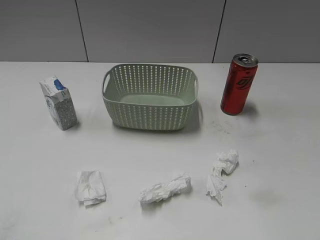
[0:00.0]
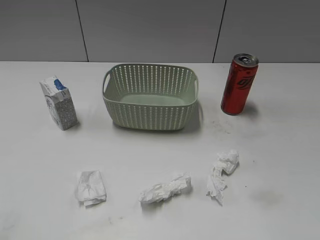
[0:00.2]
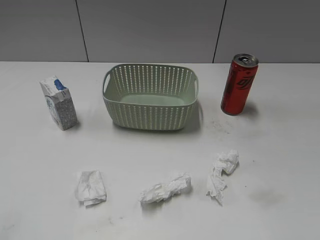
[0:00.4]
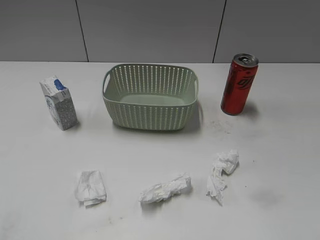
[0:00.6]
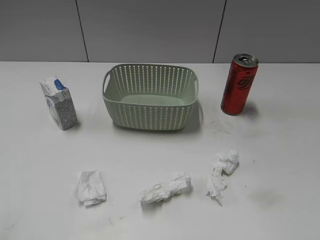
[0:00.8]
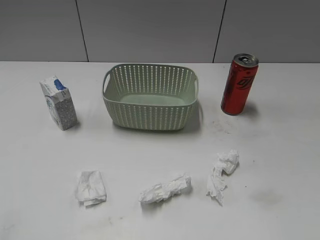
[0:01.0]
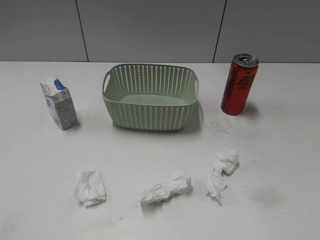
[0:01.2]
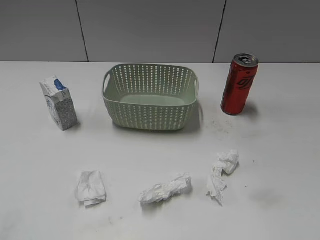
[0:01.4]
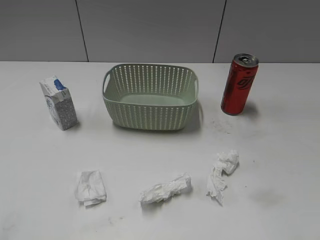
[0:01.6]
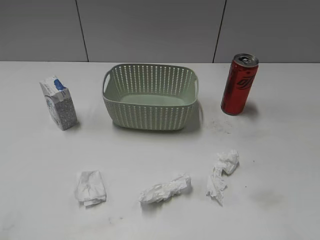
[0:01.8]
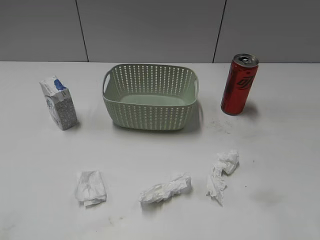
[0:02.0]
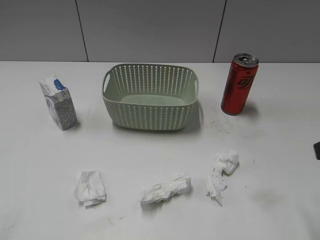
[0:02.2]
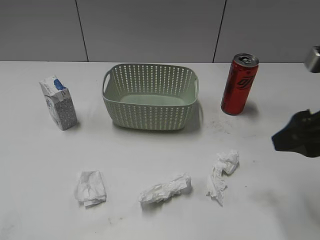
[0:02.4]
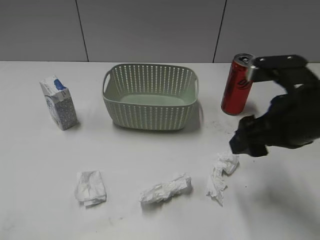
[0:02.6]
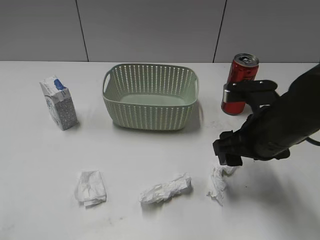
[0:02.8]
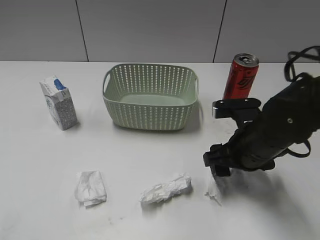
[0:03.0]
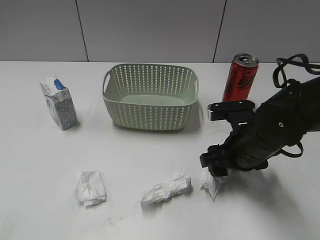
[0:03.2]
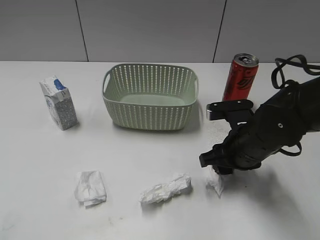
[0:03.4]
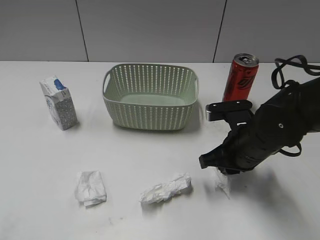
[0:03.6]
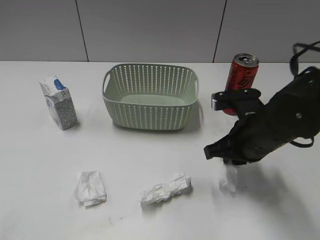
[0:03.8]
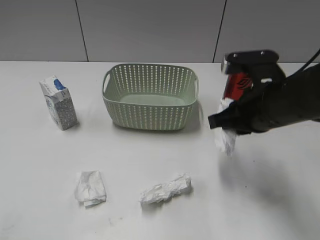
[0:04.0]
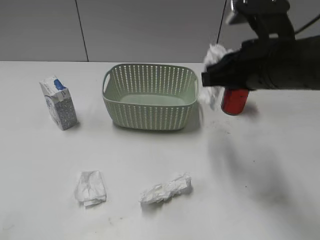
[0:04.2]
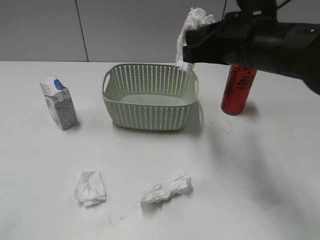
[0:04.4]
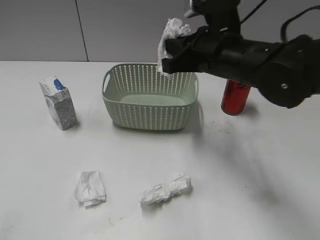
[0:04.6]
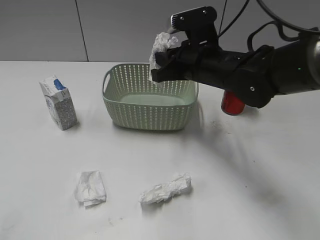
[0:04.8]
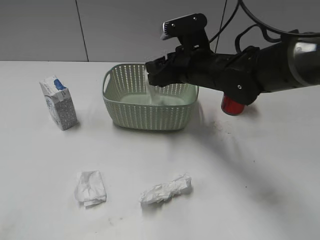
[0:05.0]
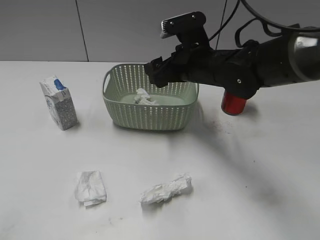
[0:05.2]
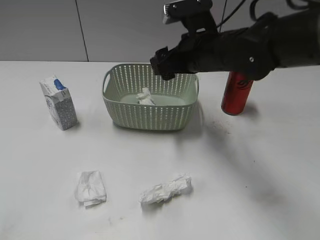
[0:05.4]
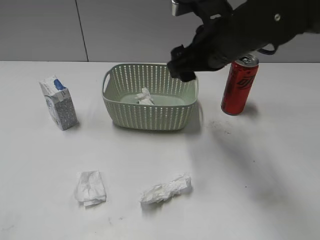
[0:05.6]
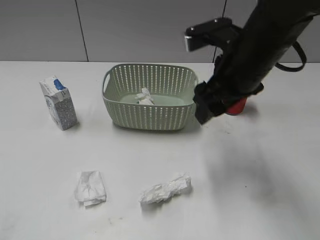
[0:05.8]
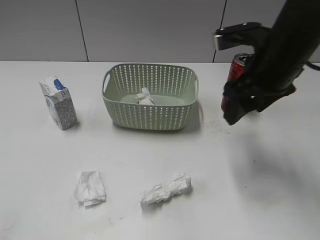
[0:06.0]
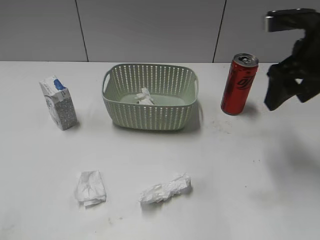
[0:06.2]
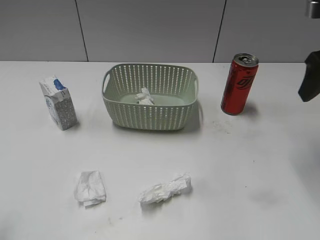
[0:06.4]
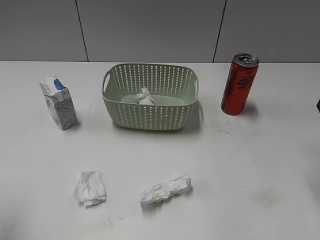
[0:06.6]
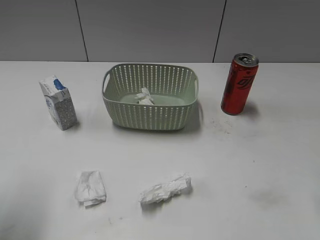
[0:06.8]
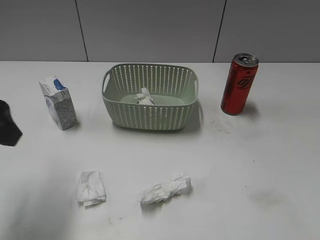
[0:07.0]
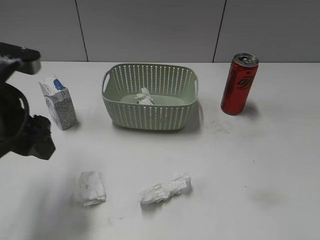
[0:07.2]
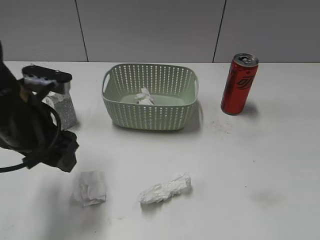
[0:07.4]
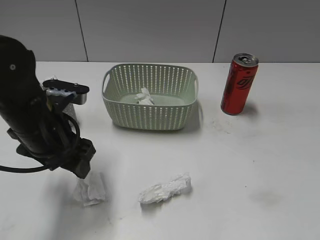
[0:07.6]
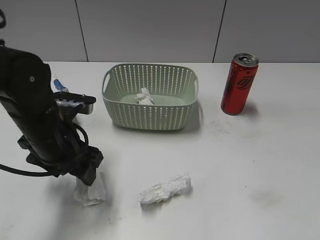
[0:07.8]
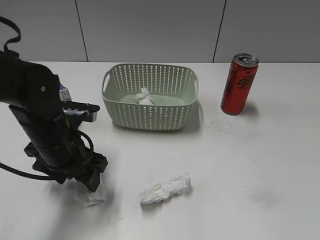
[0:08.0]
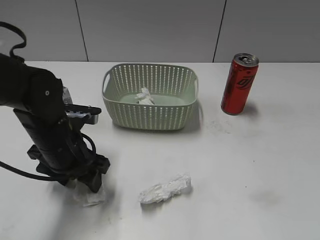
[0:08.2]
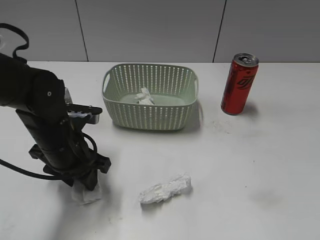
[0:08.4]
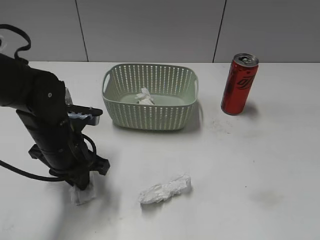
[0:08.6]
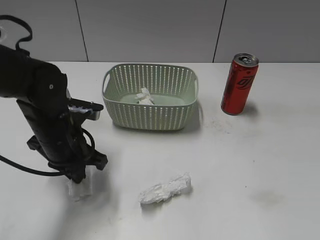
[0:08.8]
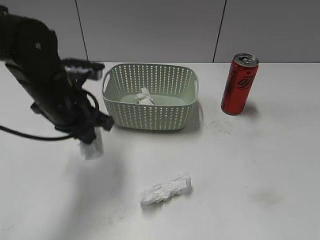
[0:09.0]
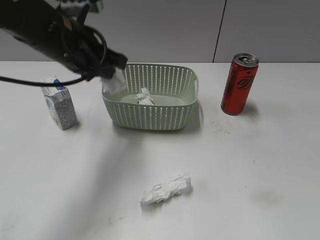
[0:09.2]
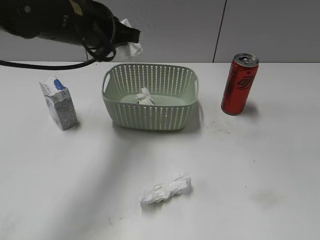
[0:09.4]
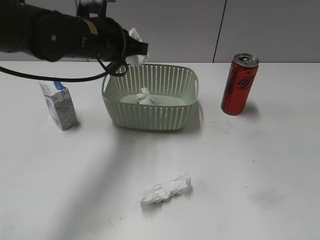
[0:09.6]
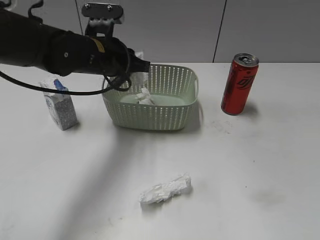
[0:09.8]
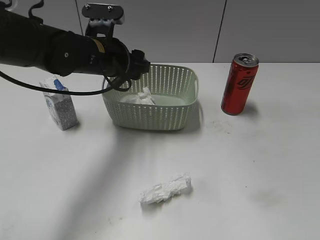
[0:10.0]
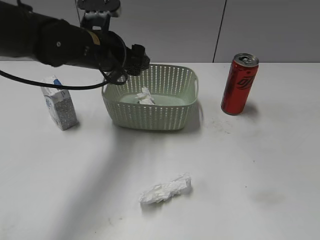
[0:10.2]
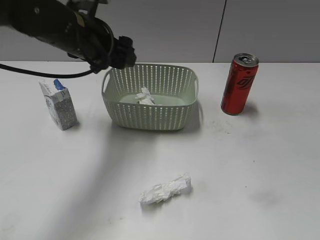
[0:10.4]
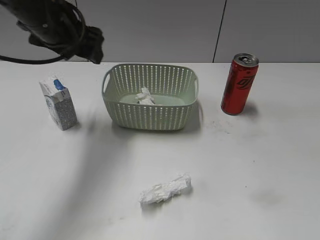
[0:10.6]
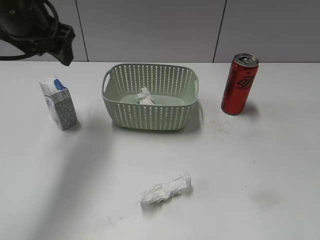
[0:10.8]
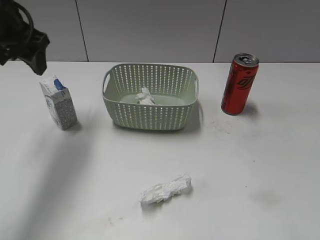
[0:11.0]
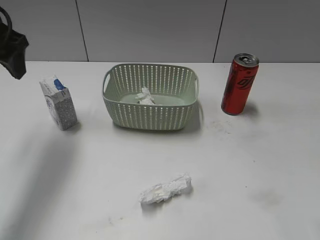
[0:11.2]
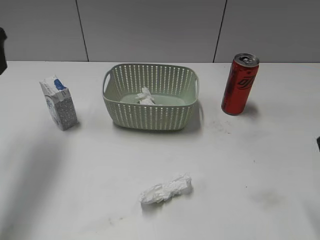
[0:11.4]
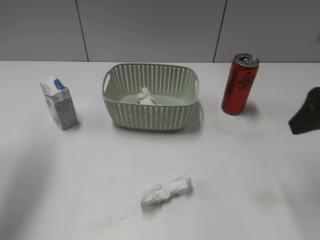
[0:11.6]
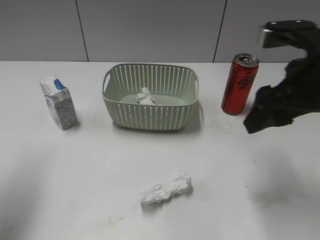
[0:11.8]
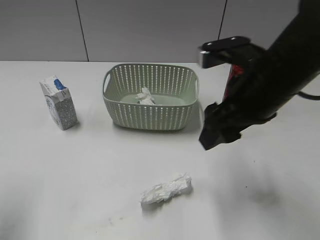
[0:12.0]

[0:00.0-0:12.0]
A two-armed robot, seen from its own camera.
Step, 0:02.2 to 0:03.6: Grasp the waste paper with right gripper.
Step, 0:03.8 to 0:05.4: Place the waste paper in the basket with right gripper.
Step, 0:05.6 to 0:08.6: Grasp the waste paper with left gripper.
Step, 0:08.8 to 0:10.0: Place the waste paper in the basket with left gripper.
0:01.6 to 0:03.0: The right gripper heads forward, downward and to the left, covering roughly 30 cm.
0:03.0 to 0:04.4: The right gripper is displaced upward by approximately 15 cm, and closes up.
0:04.4 to 0:06.0: The right gripper shifts approximately 5 cm to the right, and opens.
0:06.0 to 0:07.6: The right gripper is displaced backward and to the right by some 30 cm, while the left gripper moves forward, to the right and downward, approximately 30 cm.
0:07.6 to 0:09.0: The left gripper changes place by some 5 cm, and closes.
0:09.0 to 0:10.4: The left gripper shifts roughly 10 cm forward and upward, and opens up.
0:10.4 to 0:12.0: The left gripper shifts about 25 cm backward and to the left, while the right gripper goes roughly 30 cm forward and to the left.

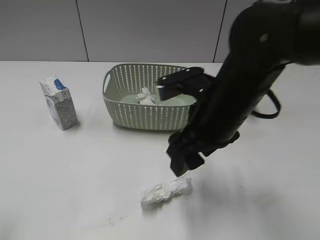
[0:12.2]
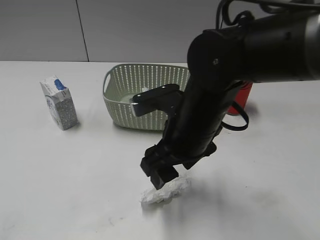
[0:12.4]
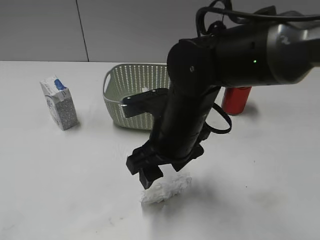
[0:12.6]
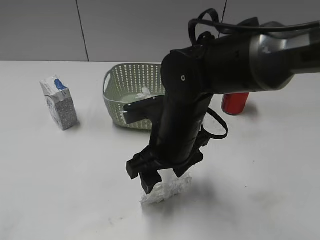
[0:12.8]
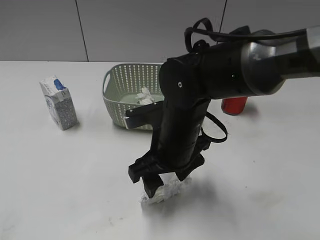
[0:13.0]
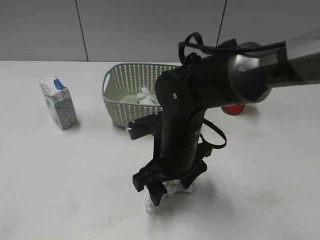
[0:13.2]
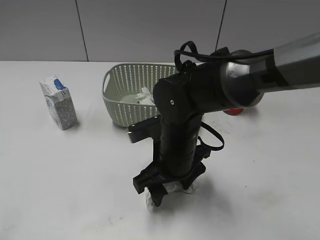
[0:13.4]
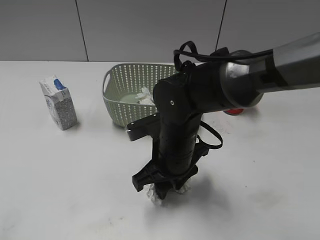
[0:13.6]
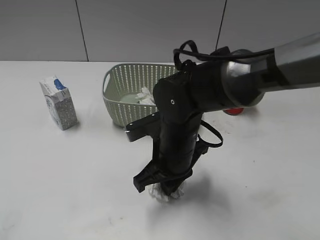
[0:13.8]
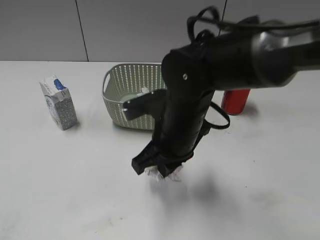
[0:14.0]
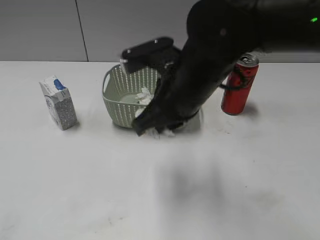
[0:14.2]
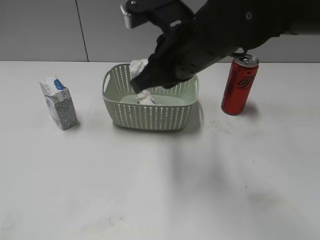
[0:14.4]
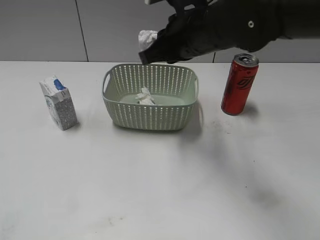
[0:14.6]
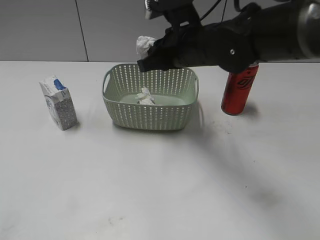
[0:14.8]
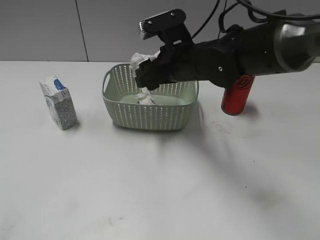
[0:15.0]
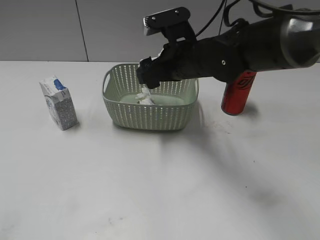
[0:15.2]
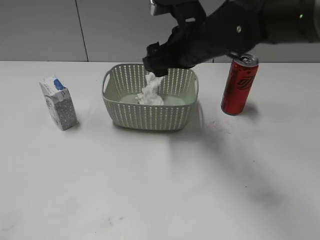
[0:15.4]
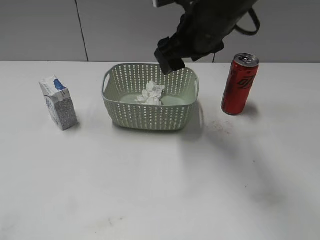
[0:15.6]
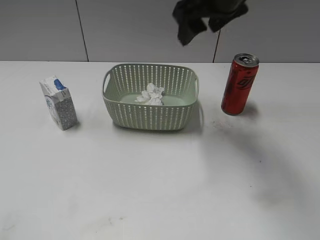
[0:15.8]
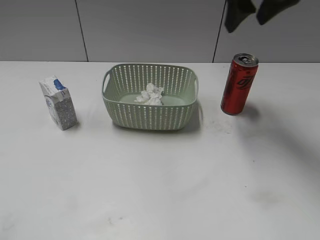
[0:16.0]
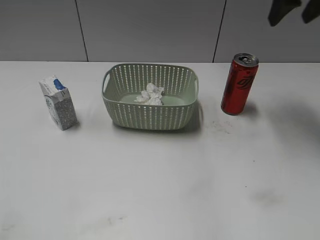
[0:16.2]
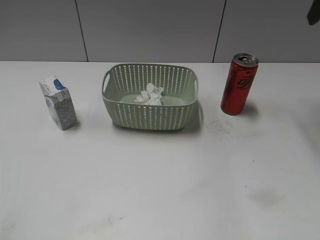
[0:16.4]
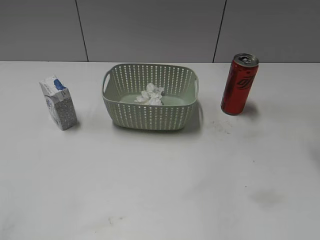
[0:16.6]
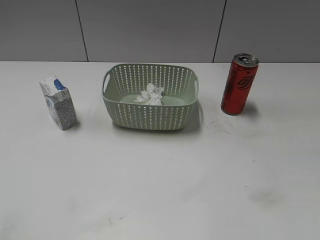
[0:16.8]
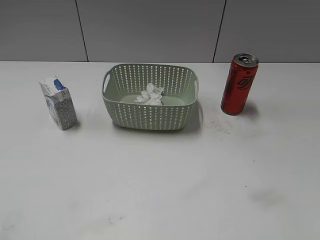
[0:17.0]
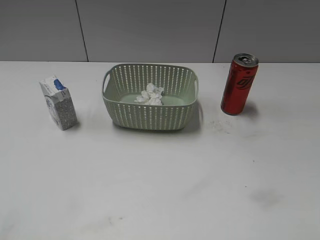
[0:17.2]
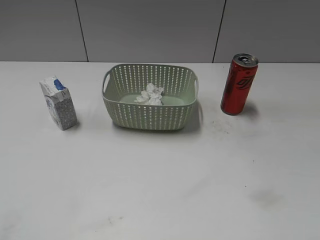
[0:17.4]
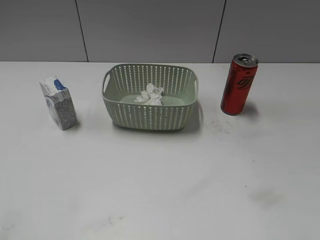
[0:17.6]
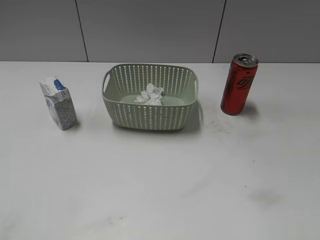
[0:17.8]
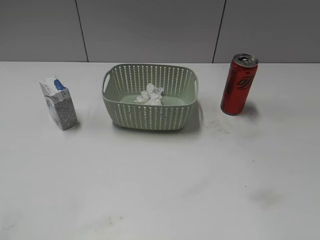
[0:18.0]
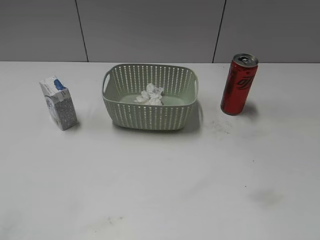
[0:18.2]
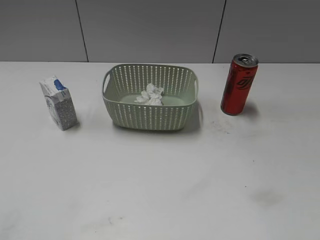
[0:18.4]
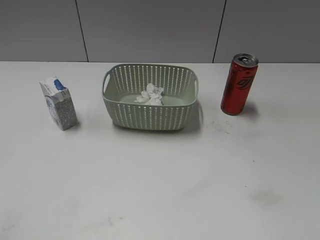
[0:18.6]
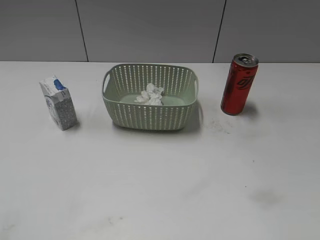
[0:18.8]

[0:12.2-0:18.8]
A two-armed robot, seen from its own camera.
Step, 0:14.0 to 0:15.4: Place the waste paper in the basket with right gripper.
0:12.2 to 0:13.8: The left gripper travels backward by roughly 10 cm. The right gripper moves downward, some 10 cm, and closes.
0:13.8 to 0:15.4: The right gripper goes up and down, about 15 cm each way, reversing 2 times, and opens up.
0:15.4 to 0:17.2: The right gripper travels backward and to the right by some 35 cm.

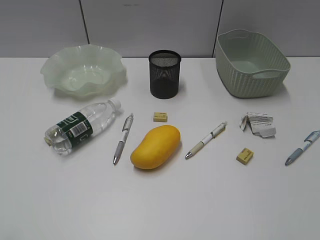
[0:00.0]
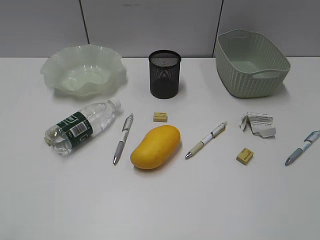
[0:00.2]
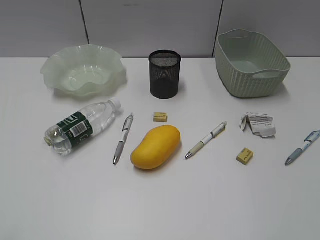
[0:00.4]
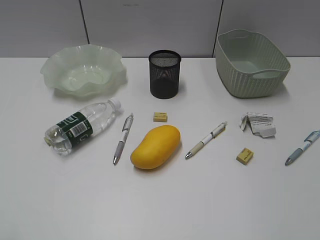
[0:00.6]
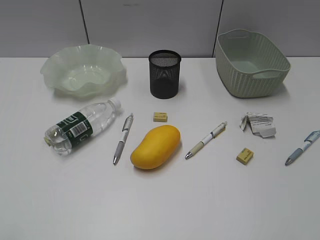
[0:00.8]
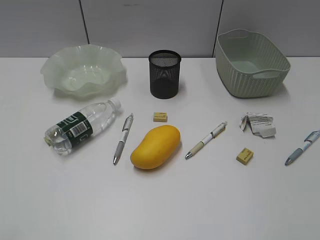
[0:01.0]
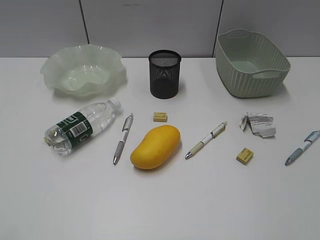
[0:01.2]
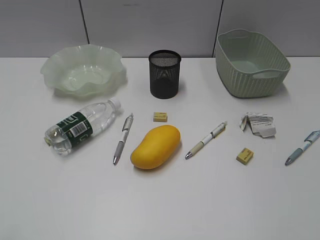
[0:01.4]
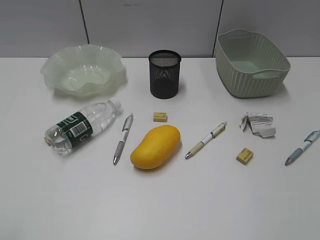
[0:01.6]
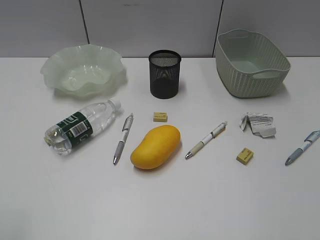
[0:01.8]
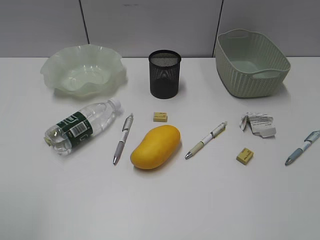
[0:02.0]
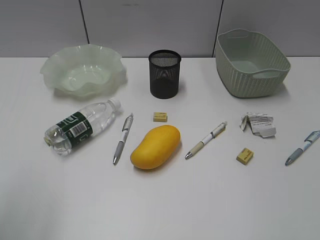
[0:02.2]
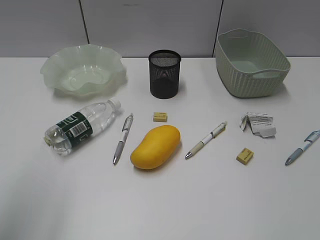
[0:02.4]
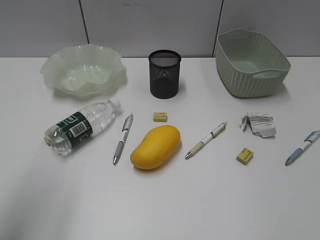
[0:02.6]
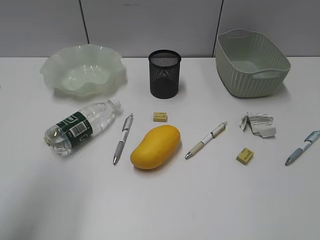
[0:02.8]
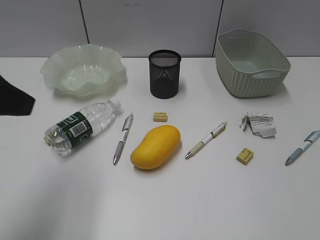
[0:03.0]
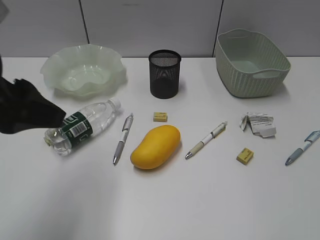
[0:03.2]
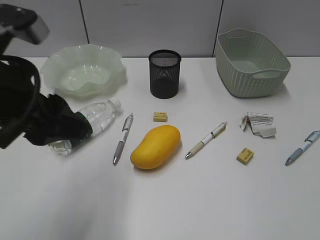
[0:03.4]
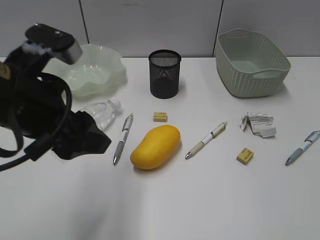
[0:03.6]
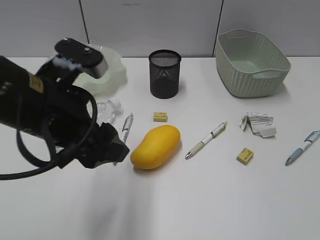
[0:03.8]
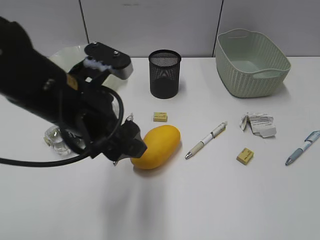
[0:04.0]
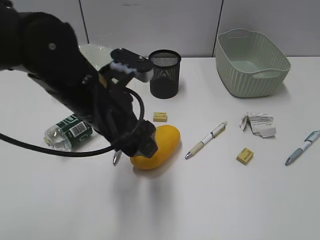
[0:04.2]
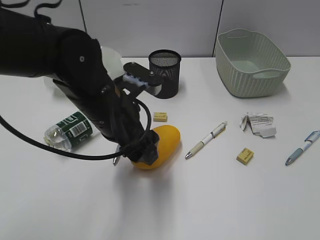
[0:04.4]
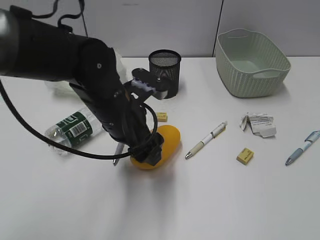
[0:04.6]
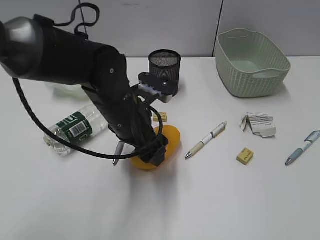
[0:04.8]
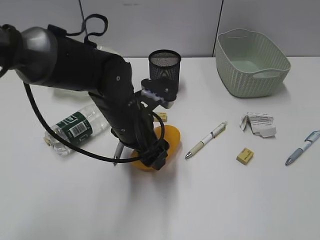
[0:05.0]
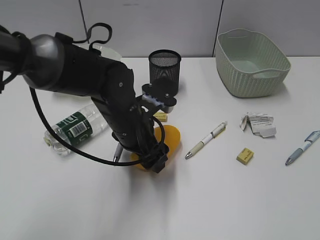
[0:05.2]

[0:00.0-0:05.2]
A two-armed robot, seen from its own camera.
0:01.8 to 0:03.4: The left gripper shifts roughly 20 cm forward and to the right.
0:03.4 to 0:05.2: The left gripper travels downward, to the right and forward by about 20 cm.
